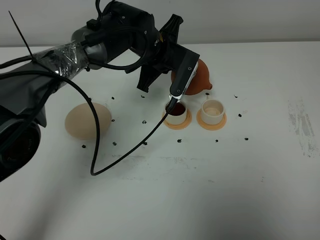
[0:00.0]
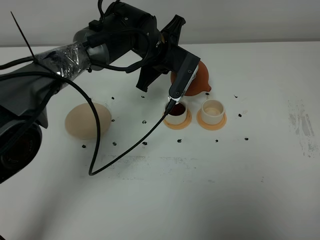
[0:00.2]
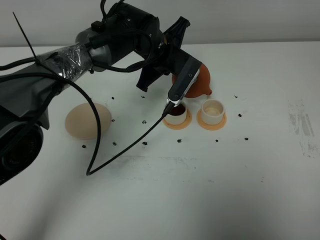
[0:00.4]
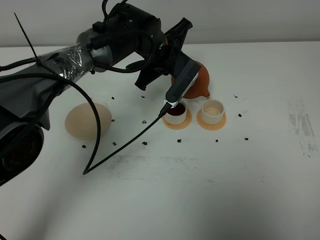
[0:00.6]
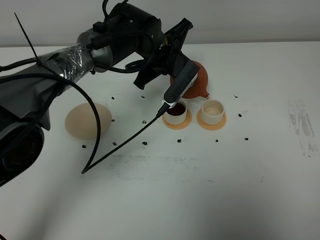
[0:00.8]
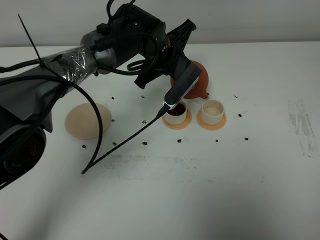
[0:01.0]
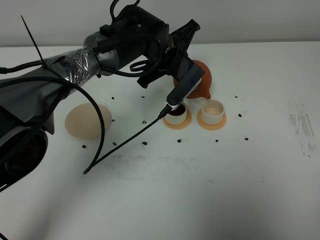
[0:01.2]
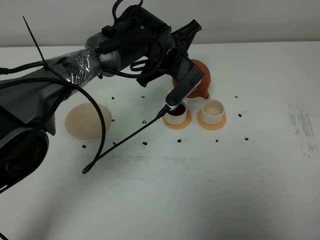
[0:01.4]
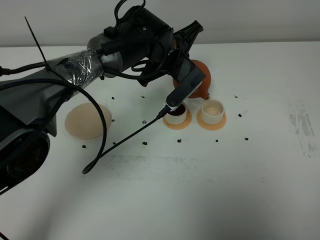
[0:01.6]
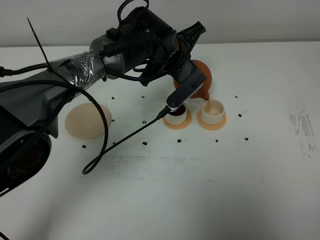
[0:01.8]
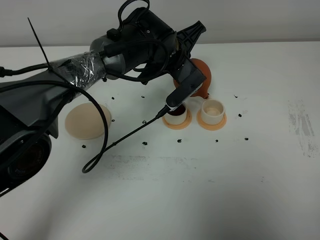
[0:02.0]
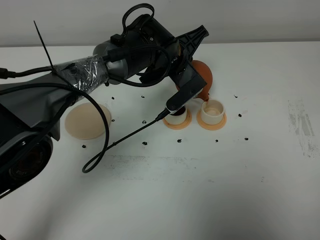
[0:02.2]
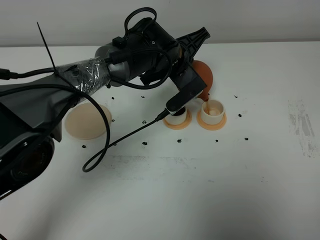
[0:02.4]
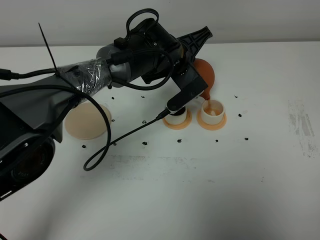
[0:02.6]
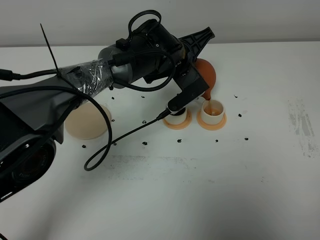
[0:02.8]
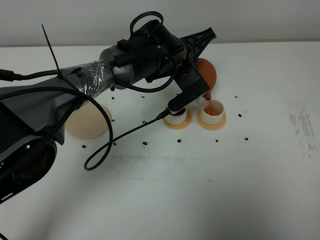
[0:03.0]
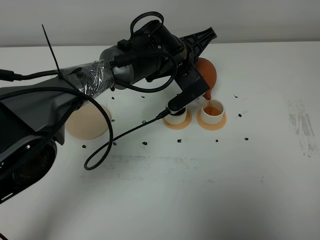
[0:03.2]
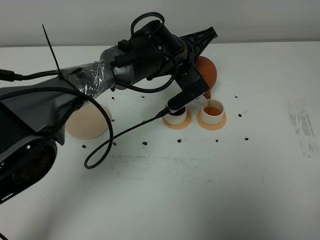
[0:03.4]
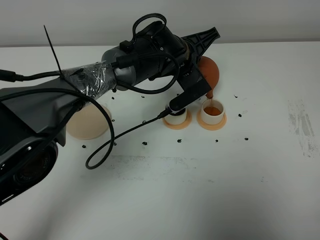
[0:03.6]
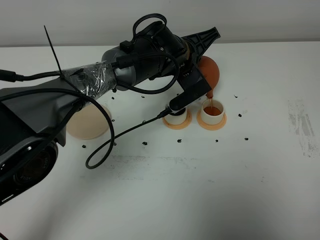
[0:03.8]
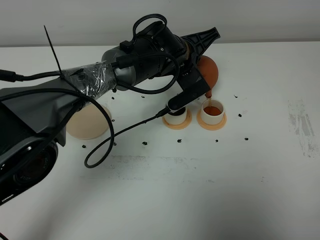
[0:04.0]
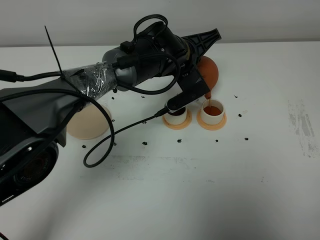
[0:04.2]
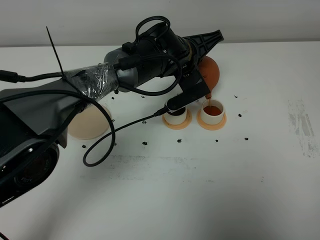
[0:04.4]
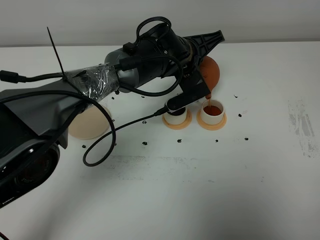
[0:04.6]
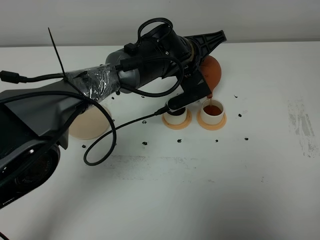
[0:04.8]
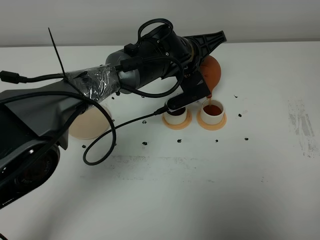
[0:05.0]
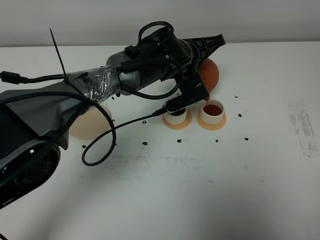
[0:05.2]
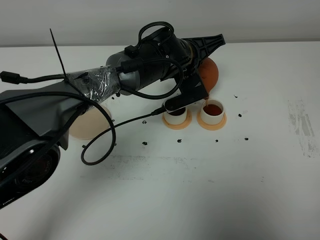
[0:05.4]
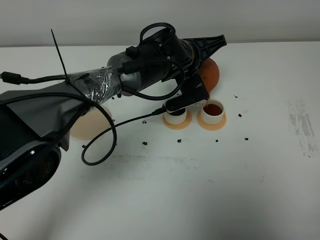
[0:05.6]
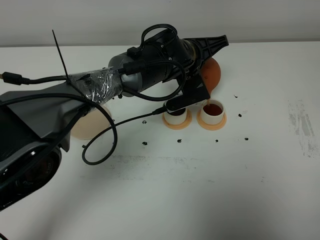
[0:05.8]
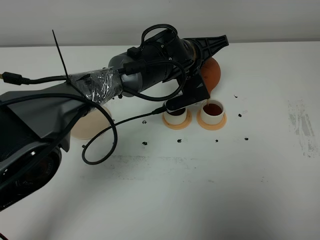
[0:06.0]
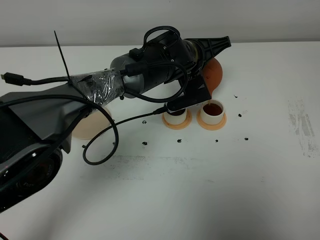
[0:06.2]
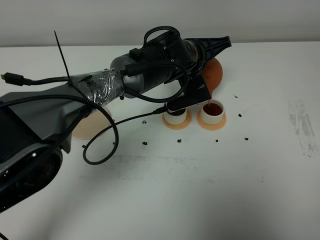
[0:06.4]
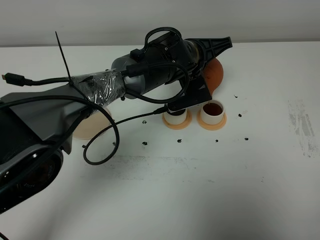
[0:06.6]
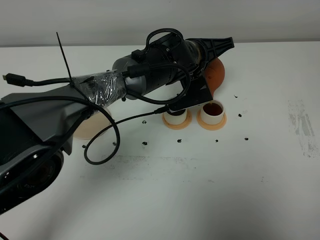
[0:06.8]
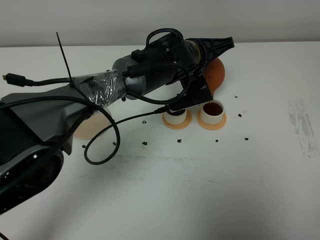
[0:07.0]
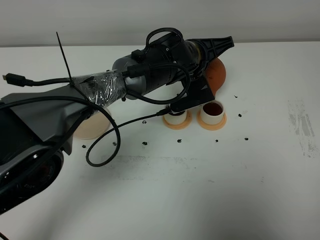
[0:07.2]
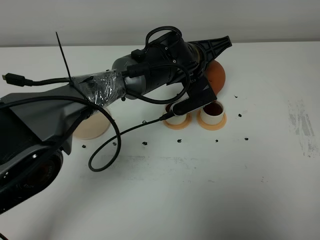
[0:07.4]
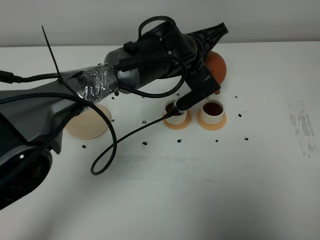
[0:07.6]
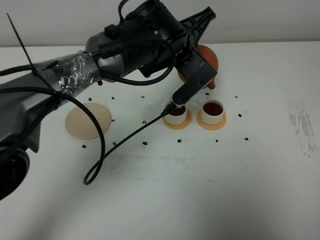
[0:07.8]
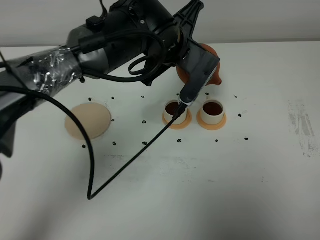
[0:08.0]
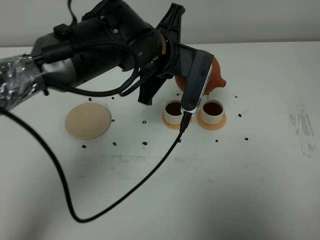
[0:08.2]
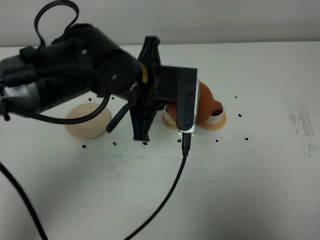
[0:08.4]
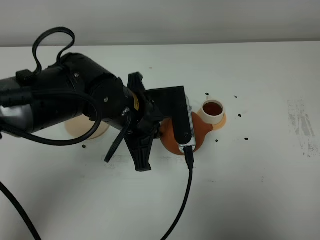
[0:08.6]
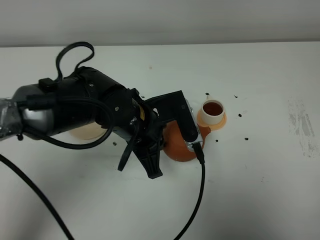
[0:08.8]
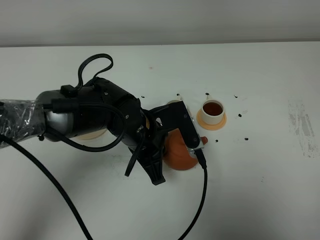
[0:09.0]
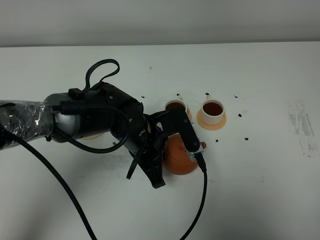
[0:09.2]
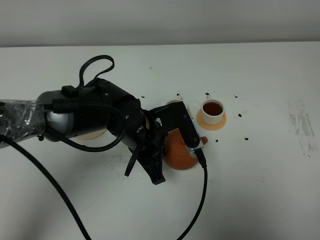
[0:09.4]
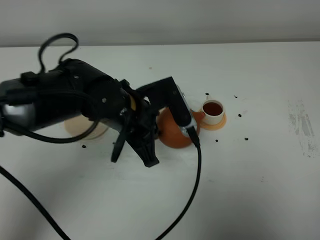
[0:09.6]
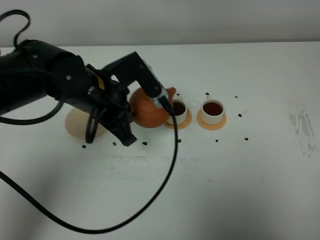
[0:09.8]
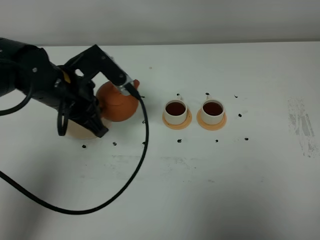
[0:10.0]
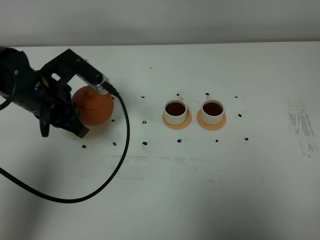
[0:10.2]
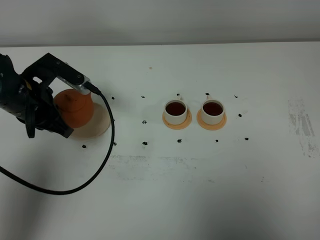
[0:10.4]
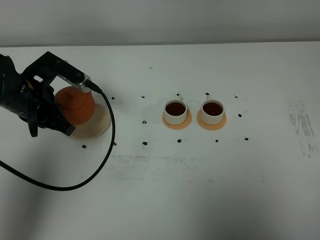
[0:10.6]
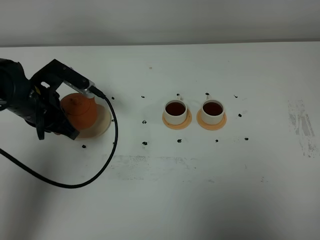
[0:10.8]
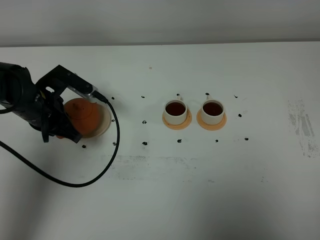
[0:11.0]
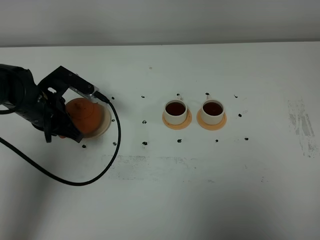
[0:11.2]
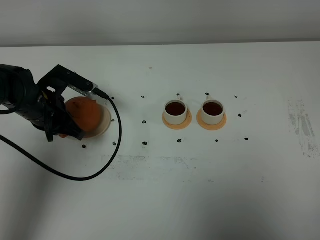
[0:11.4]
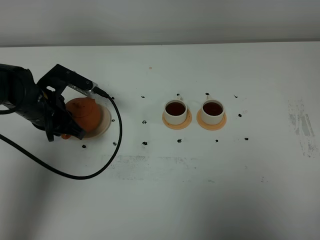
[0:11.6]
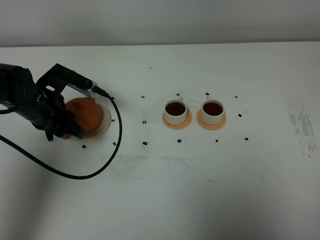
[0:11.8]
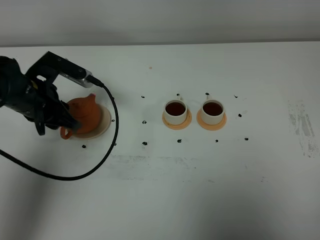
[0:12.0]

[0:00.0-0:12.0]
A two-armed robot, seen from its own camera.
Task of the whole recording: grasp the brown teapot and pour the tea into the two white teacups one by one, put the brown teapot back in its original place.
Step, 0:00.0 to 0:07.2: Pour tea into the teacup with the left gripper.
0:01.6 to 0:03.0: There are only small adjustments of the grippers.
0:03.0 to 0:07.6: The grippers make only small movements.
0:07.6 to 0:09.0: The left gripper travels backward, to the left and downward by about 15 cm.
0:09.0 to 0:10.4: The left gripper shifts some 20 cm to the left.
0:10.4 to 0:12.0: The left gripper opens its fingers.

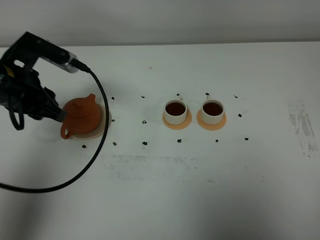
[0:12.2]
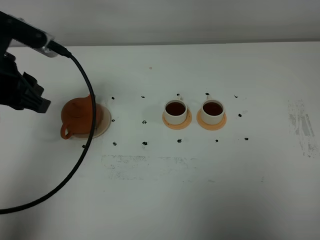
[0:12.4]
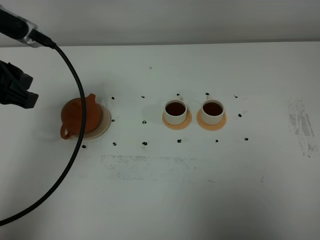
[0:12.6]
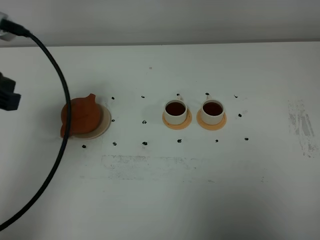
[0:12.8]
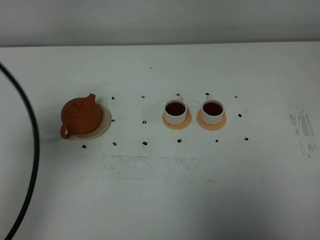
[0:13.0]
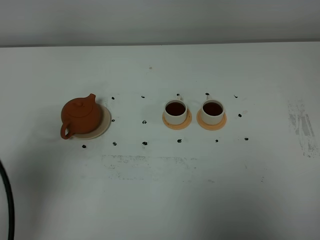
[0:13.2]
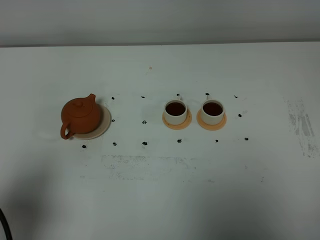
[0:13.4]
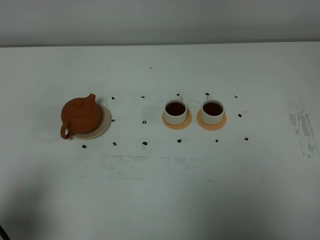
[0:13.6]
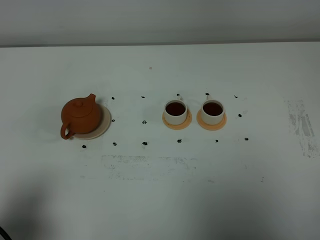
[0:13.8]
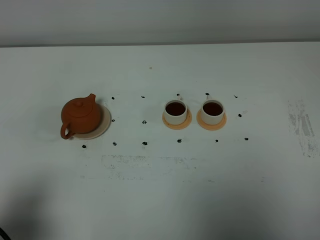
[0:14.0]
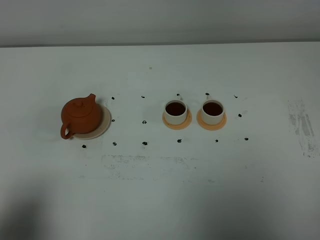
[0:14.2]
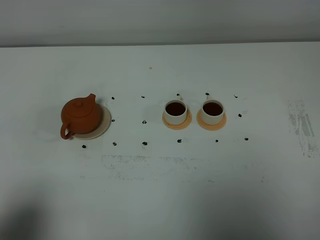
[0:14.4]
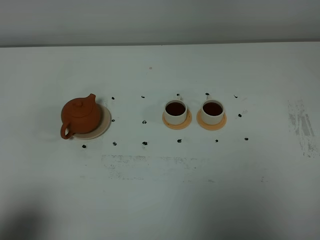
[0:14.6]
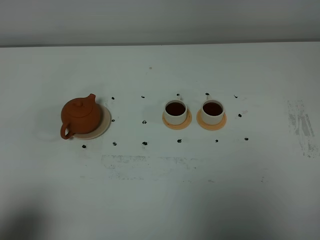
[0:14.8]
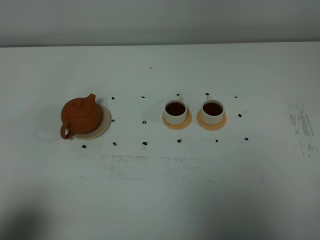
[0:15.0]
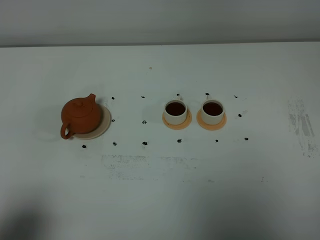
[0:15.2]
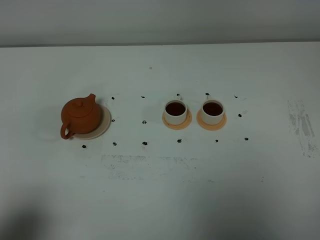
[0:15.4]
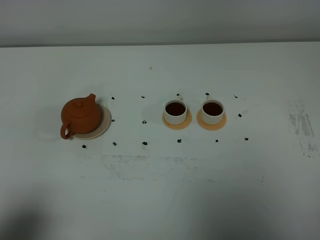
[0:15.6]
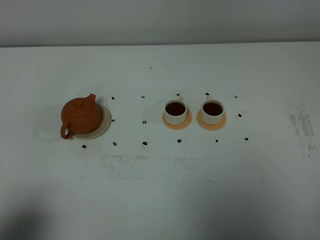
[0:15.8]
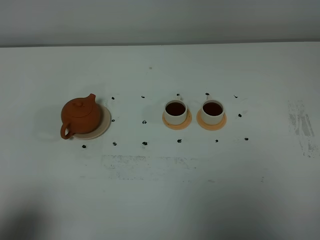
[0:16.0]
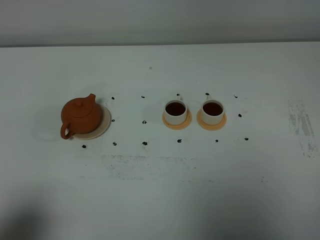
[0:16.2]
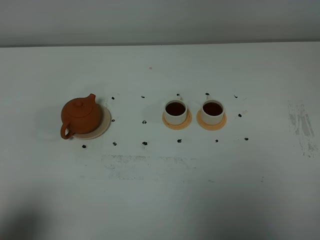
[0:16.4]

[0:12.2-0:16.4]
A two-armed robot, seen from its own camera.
Task of the whole recording: grasp the brown teapot and pour the tea into the two white teacups one by one, put the brown teapot back in its original place.
0:12.2 to 0:13.6: The left gripper heads backward, covering about 25 cm.
0:15.0 to 0:16.4: Both grippers stay about where they are.

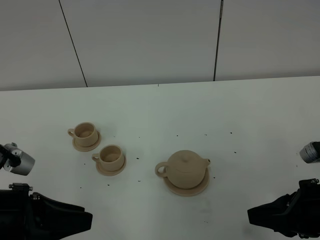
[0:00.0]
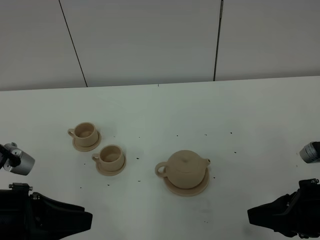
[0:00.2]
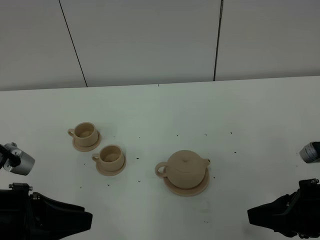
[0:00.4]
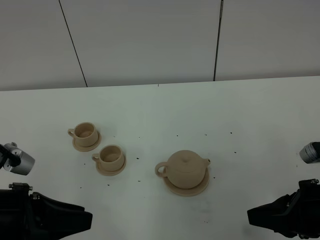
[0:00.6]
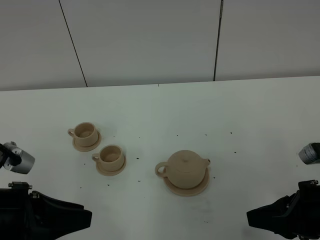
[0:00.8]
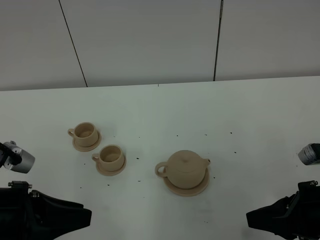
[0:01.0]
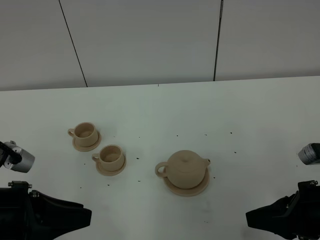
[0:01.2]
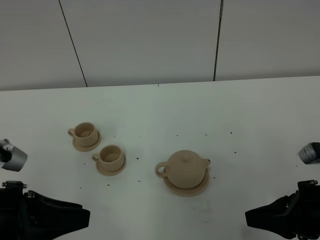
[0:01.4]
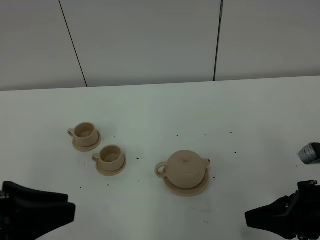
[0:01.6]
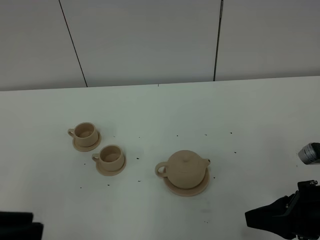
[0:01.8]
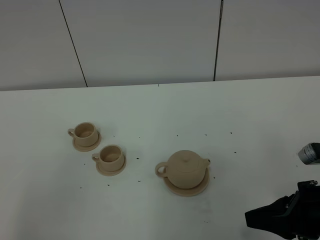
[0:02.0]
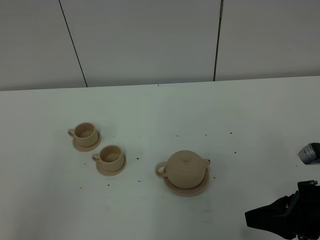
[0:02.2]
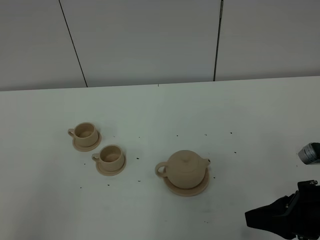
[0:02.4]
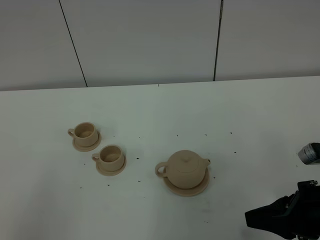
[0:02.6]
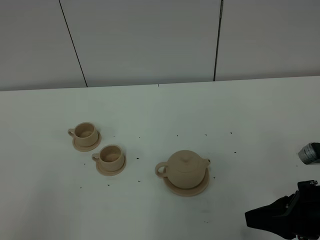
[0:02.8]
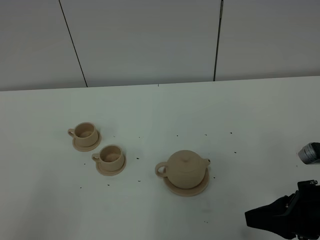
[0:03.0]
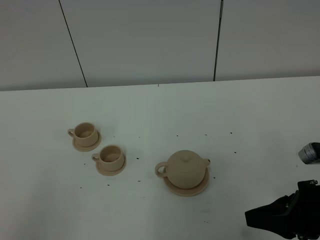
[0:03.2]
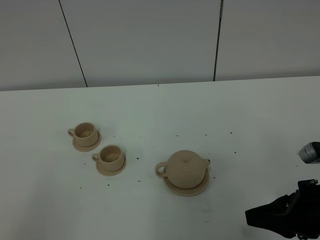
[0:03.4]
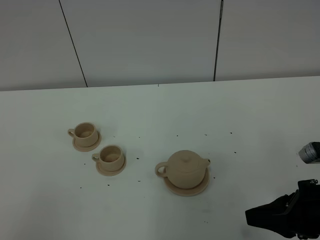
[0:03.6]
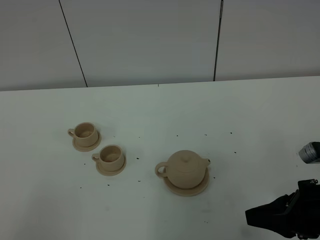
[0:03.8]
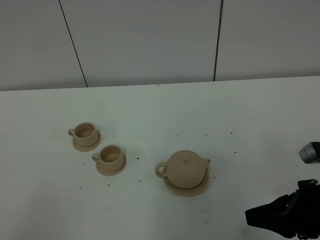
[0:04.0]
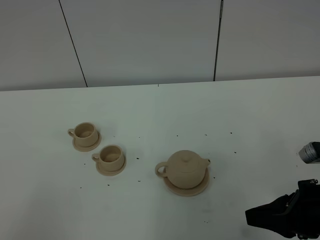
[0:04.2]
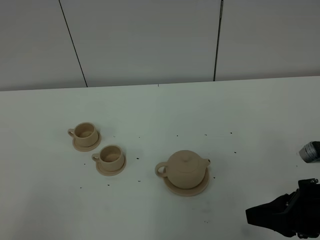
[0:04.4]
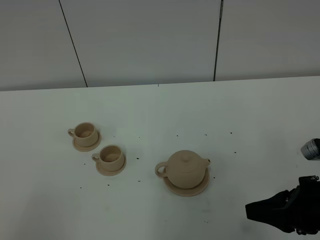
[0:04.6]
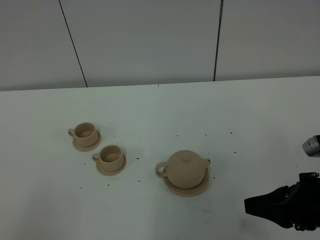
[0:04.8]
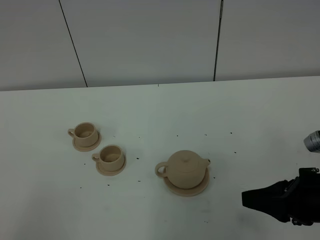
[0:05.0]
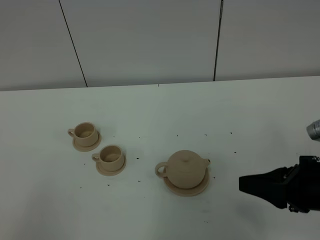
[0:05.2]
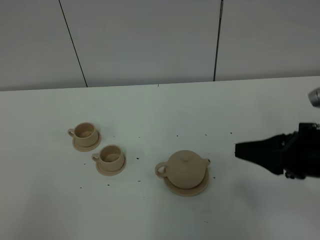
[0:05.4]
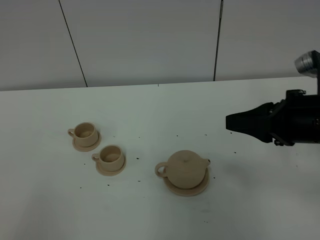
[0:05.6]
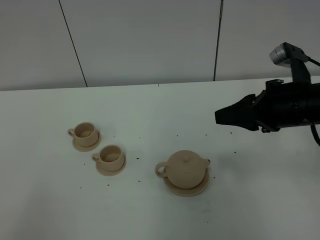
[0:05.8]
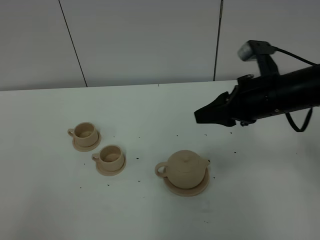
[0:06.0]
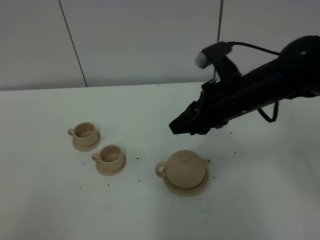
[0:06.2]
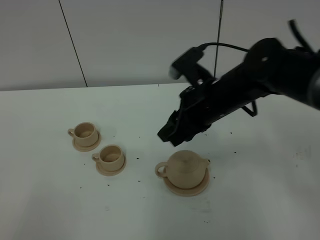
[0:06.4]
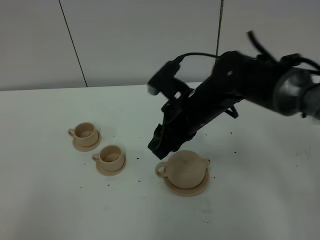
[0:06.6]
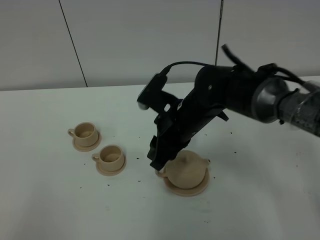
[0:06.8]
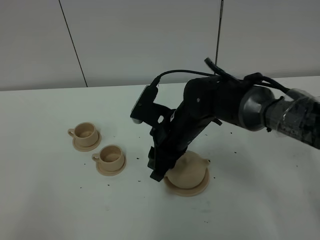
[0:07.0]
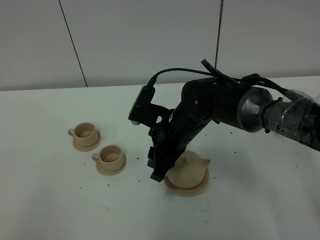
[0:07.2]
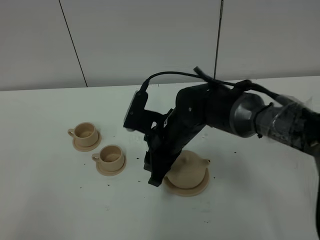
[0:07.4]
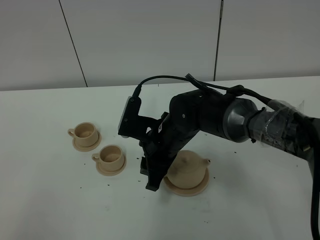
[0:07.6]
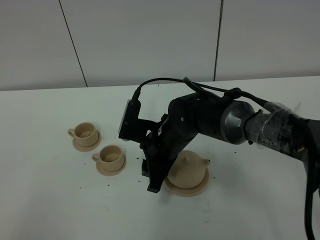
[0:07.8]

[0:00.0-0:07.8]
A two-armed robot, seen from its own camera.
Task of the whole recording: grasp the brown teapot and pour the tea into the two brown teacups one by one, put the brown teapot back in its original place.
0:00.0 to 0:01.6: The left gripper travels upward by some 5 cm.
0:01.6 to 0:03.2: The left gripper goes some 10 cm backward and to the left.
0:03.2 to 0:04.6: There are only small adjustments of the grippers.
0:04.6 to 0:06.2: The right gripper goes about 20 cm forward and to the left, and opens.
0:06.2 to 0:07.8: The right gripper is displaced to the left and downward by some 15 cm.
